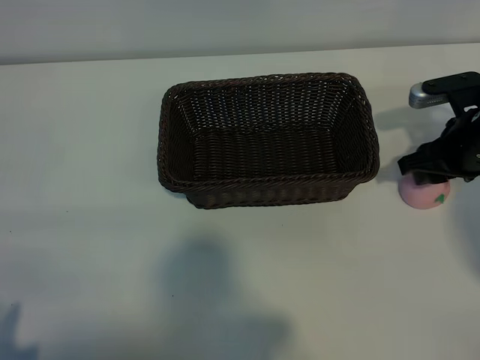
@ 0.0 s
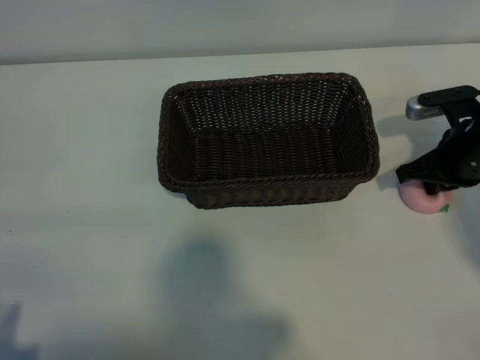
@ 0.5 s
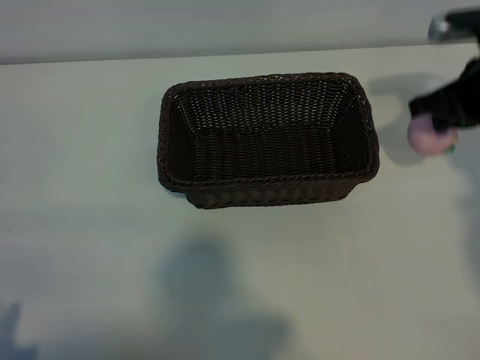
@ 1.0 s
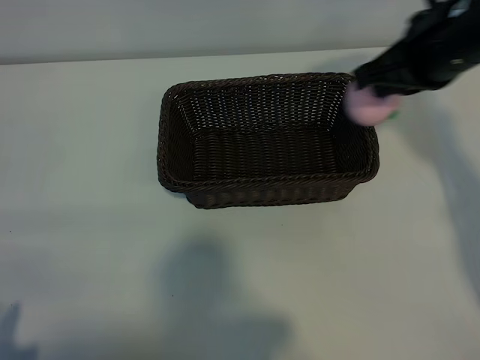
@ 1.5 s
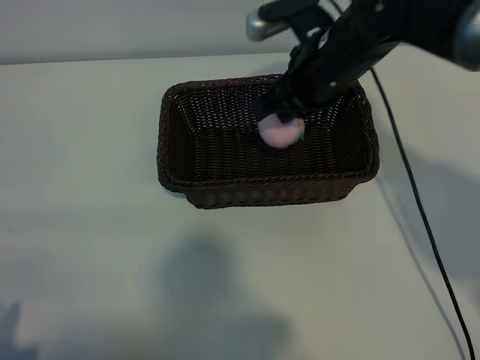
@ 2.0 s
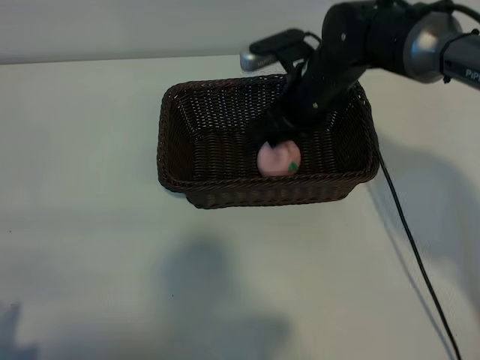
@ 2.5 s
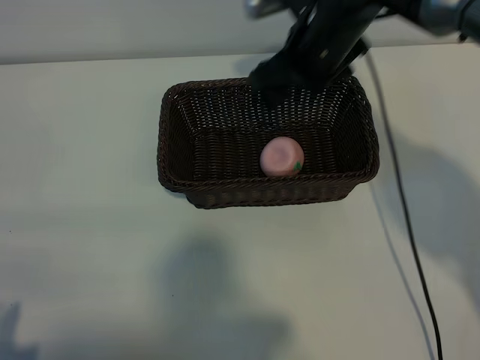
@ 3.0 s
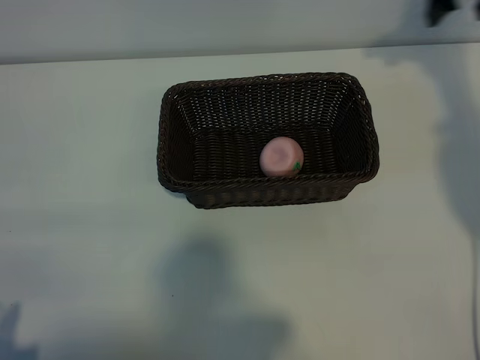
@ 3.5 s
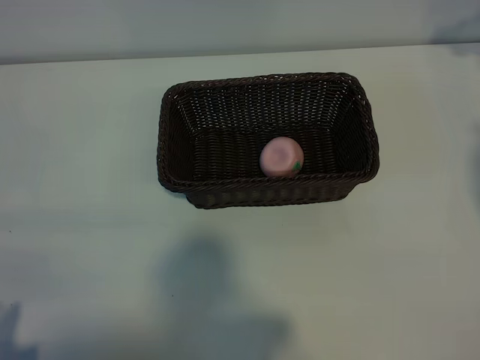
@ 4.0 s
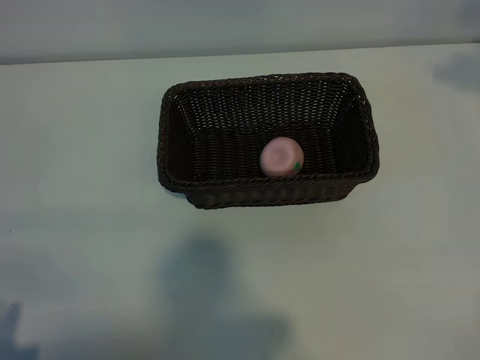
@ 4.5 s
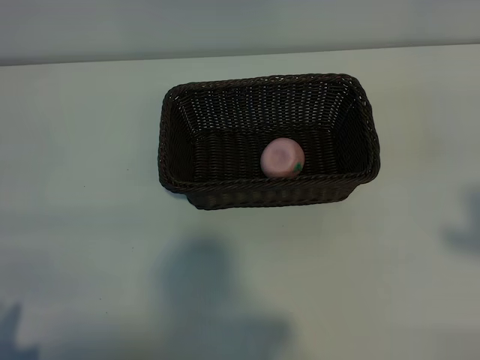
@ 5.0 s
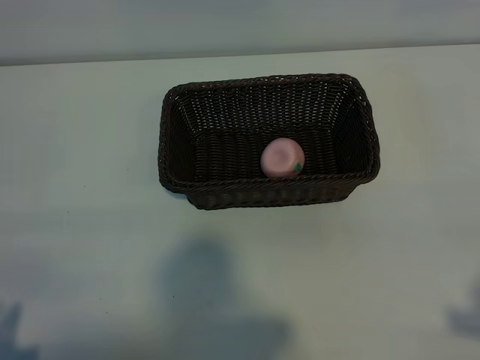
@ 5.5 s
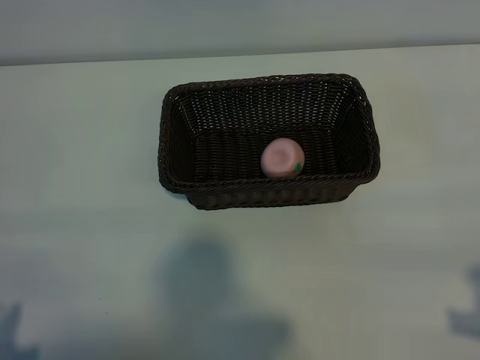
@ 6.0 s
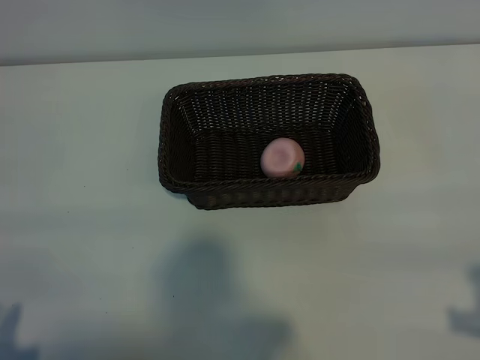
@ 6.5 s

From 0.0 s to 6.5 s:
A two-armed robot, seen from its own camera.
Task of the whole recording: pick up the peach and put it into the basket.
Step, from 1.0 s to 2.5 s: Place the peach in the basket with right gripper.
